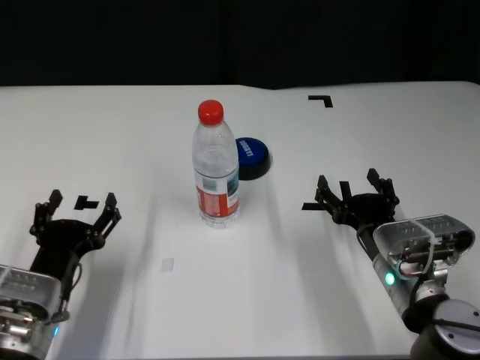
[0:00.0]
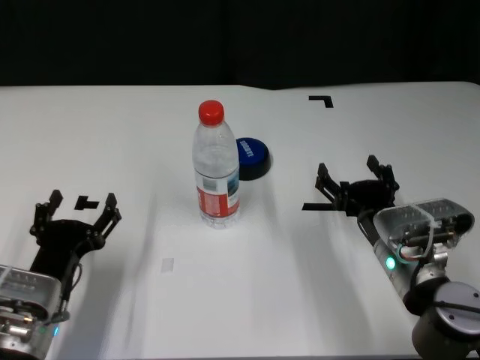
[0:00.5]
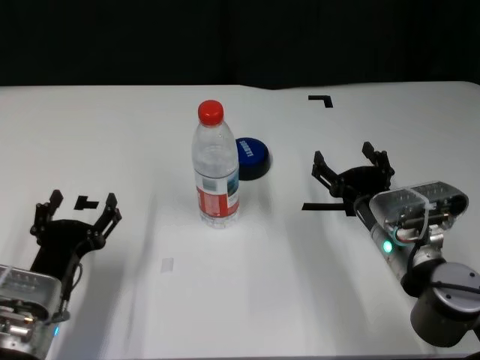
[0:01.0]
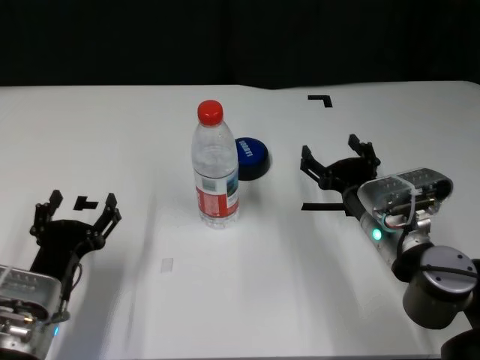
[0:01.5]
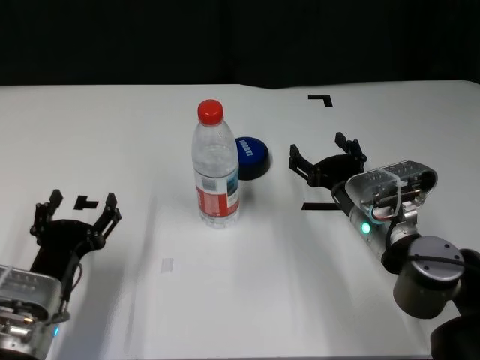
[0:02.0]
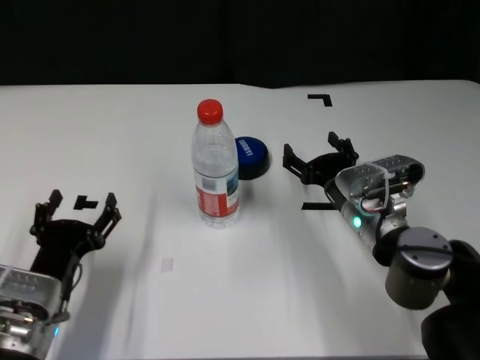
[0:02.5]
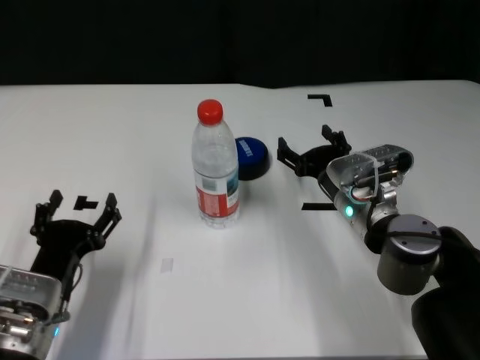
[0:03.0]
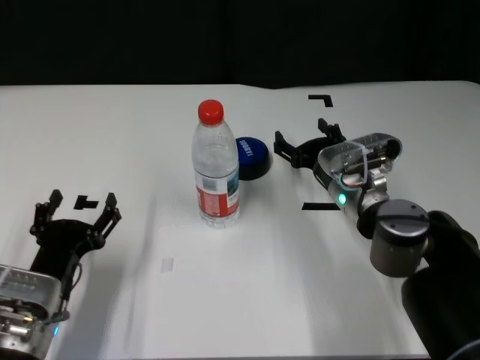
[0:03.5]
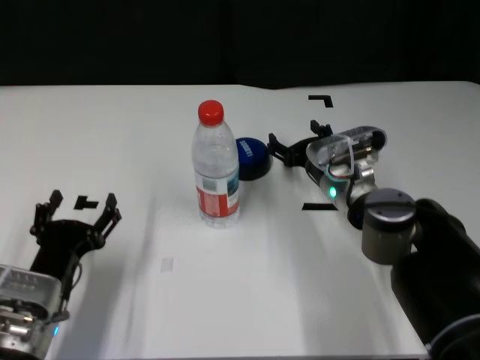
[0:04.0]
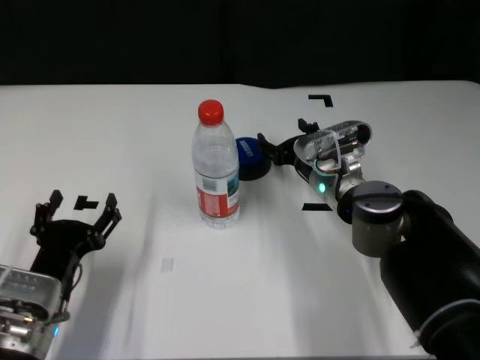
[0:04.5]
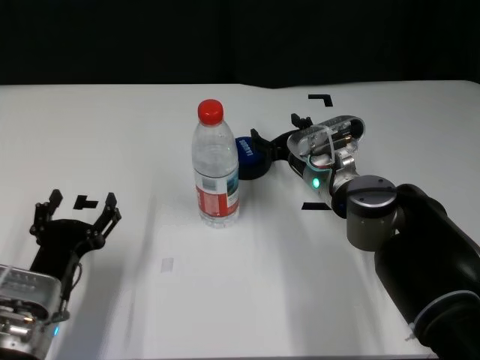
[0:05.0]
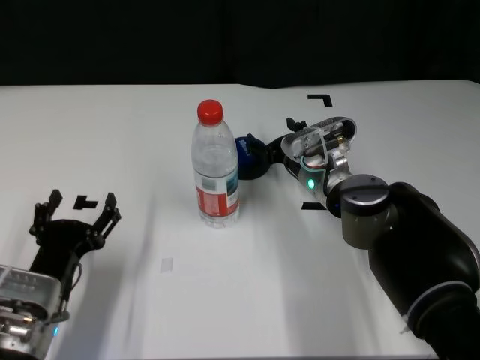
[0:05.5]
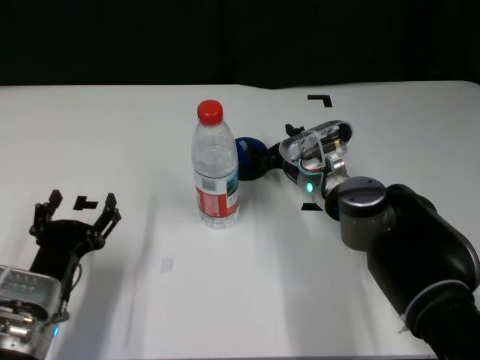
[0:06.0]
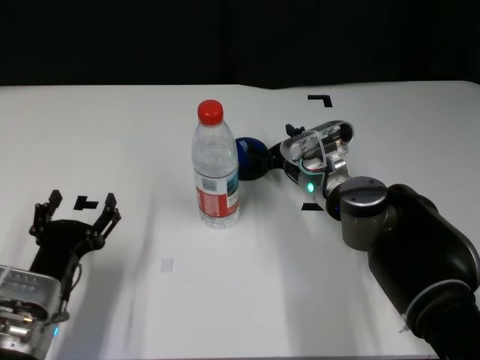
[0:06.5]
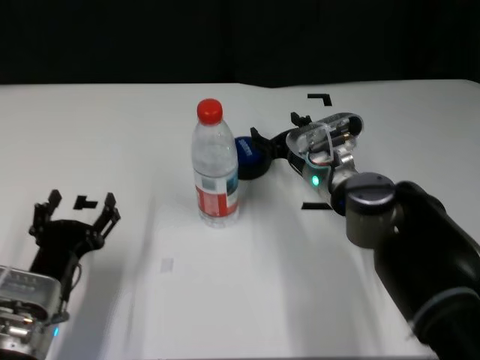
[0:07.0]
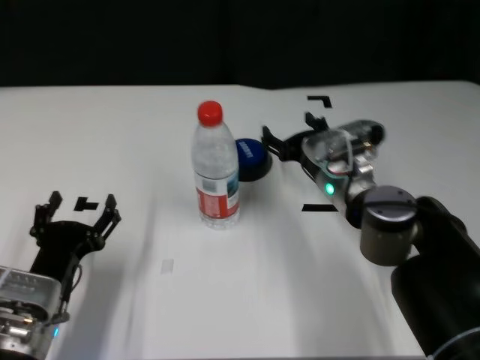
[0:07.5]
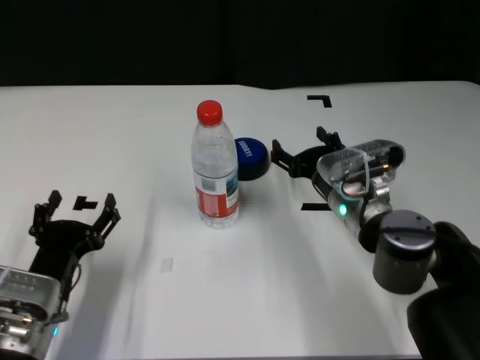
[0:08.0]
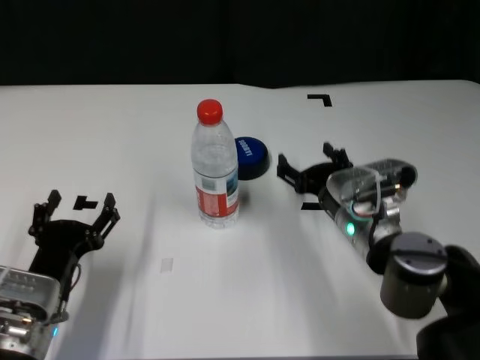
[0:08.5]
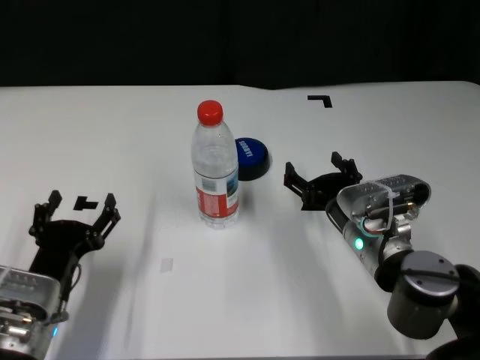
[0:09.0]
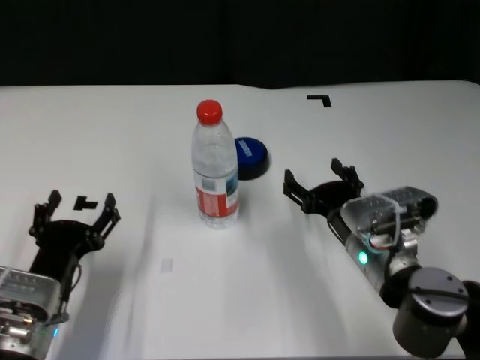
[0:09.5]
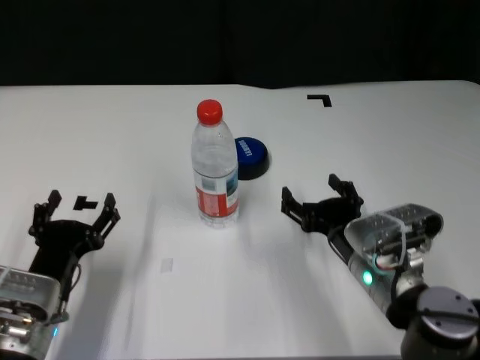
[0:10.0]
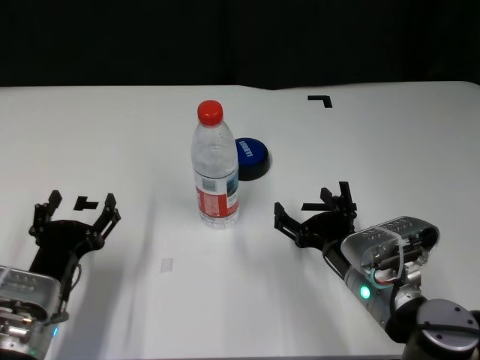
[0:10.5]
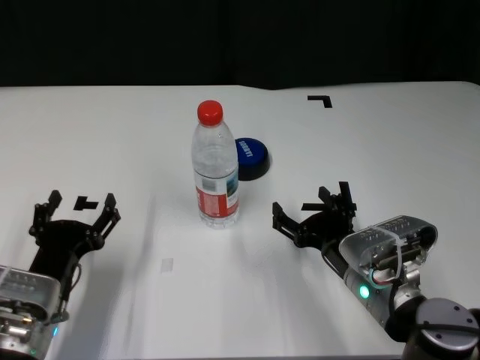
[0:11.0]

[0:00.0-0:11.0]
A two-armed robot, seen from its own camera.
Task of the whole recording: after avoiding the water bottle on the table, press the button.
Step, 0:00.0 to 0:06.5: Press the button blocked by the bottle with right gripper.

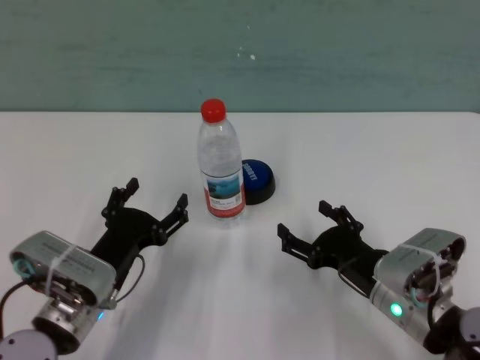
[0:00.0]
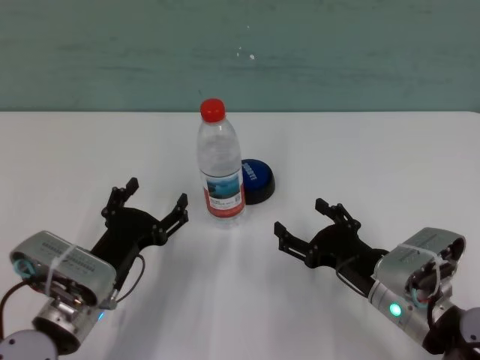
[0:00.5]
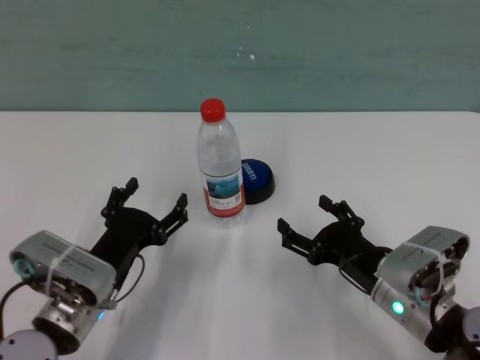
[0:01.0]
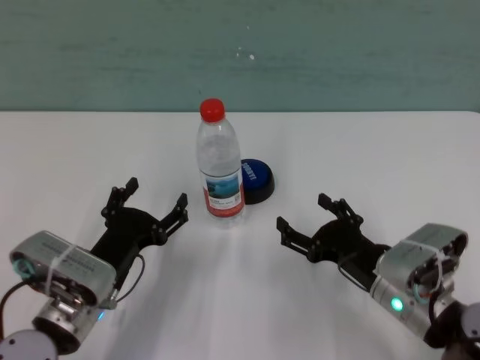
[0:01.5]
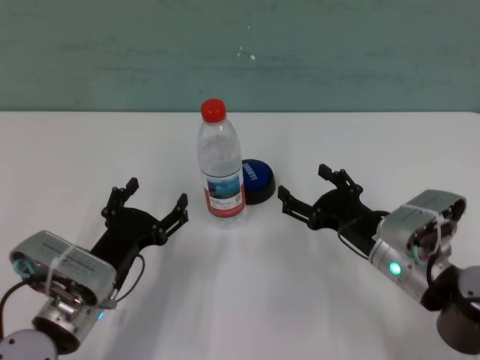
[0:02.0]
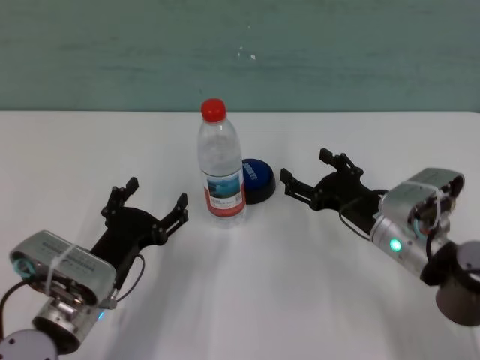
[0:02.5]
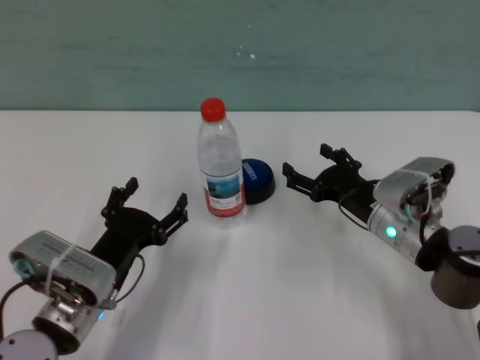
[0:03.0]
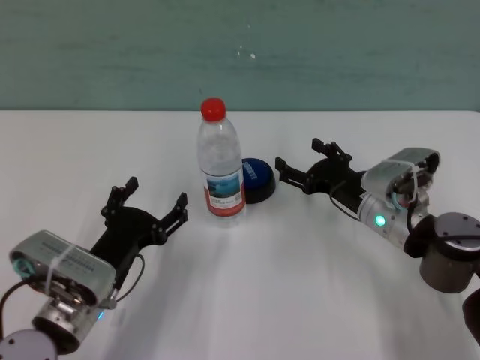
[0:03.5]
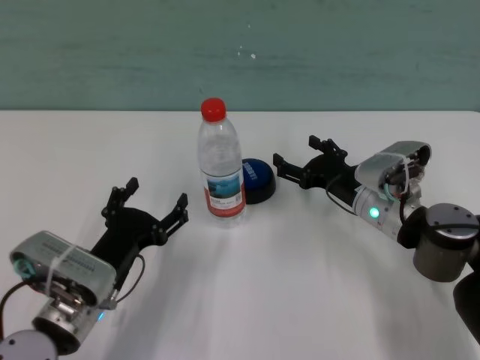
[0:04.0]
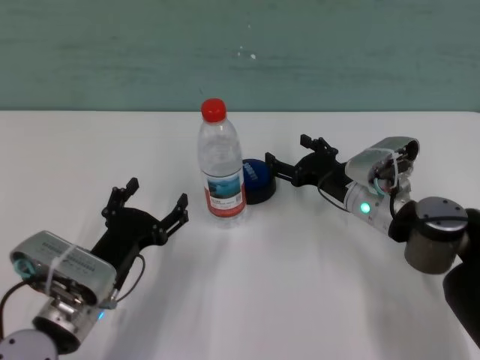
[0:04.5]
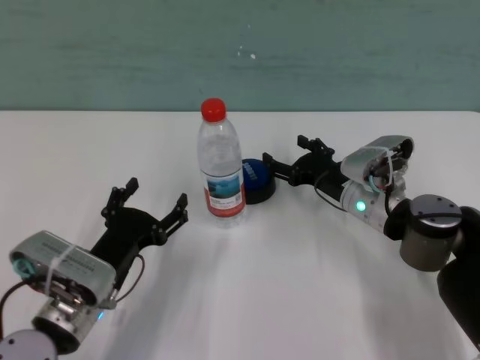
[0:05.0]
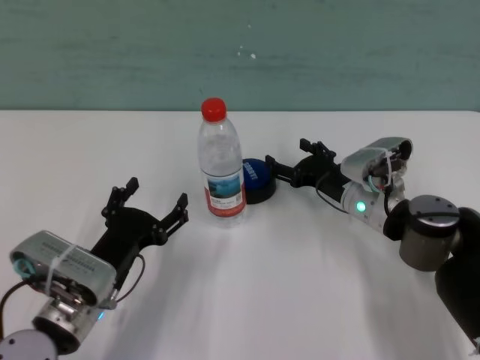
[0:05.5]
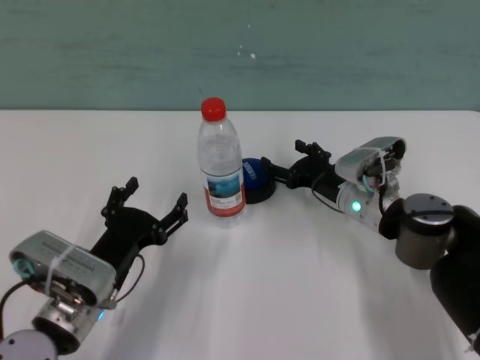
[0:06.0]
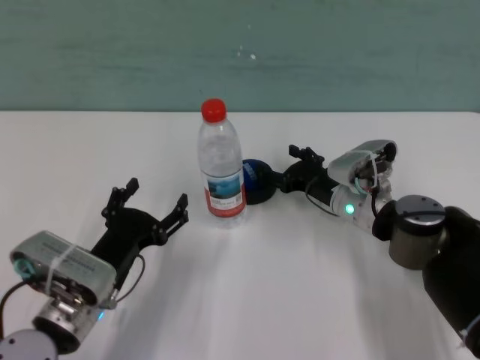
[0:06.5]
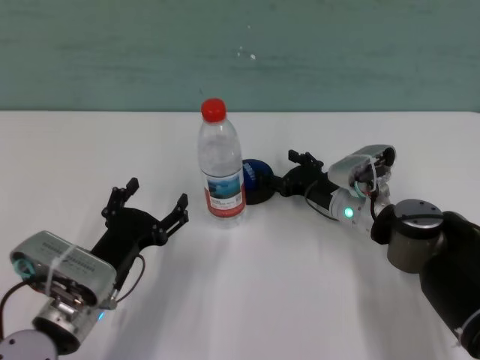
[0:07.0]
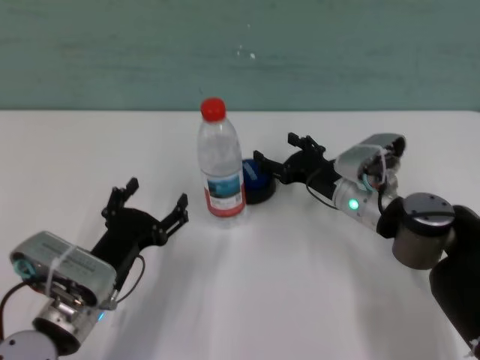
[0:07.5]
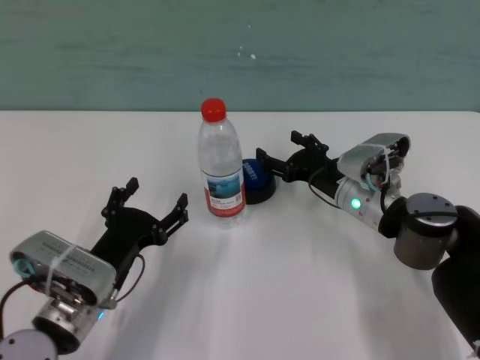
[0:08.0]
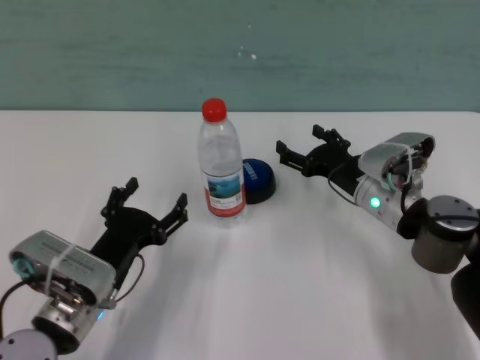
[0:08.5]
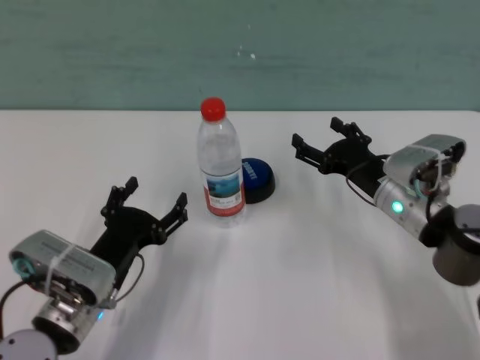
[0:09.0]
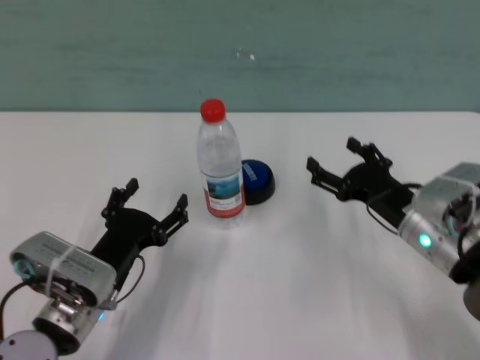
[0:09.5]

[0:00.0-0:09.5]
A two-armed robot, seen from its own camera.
Task of the whole recording: after avoiding the water bottle on the table, press the button.
Step, 0:00.0 to 0:07.5: Press the button blocked by the bottle with right gripper.

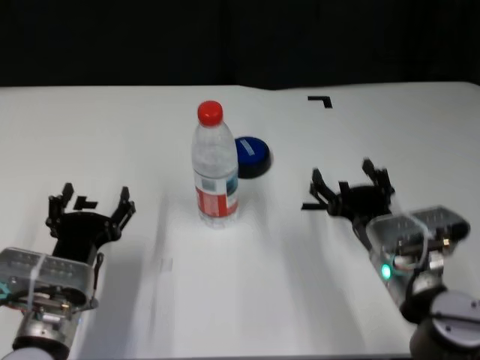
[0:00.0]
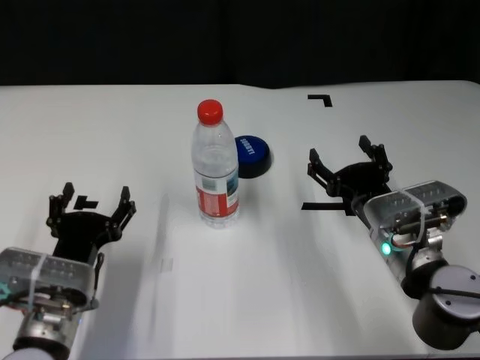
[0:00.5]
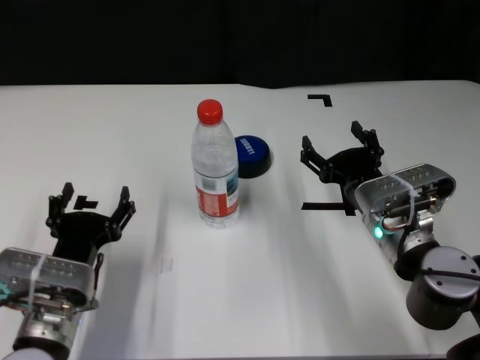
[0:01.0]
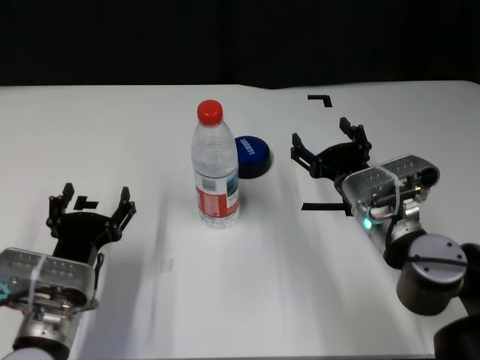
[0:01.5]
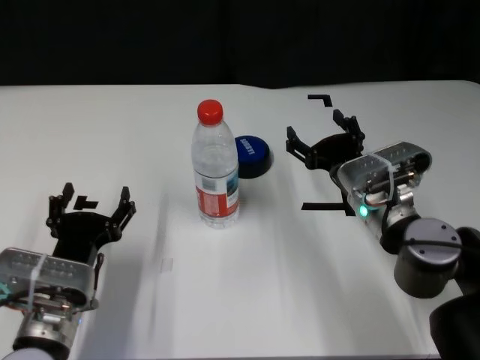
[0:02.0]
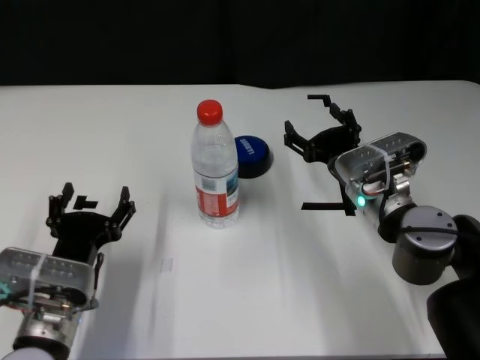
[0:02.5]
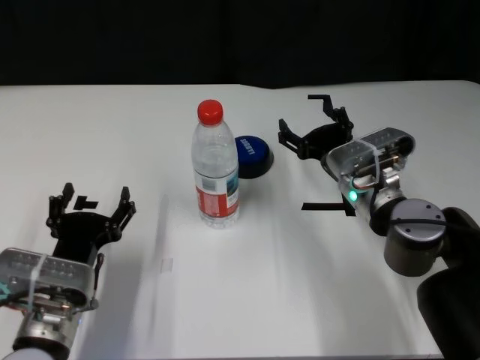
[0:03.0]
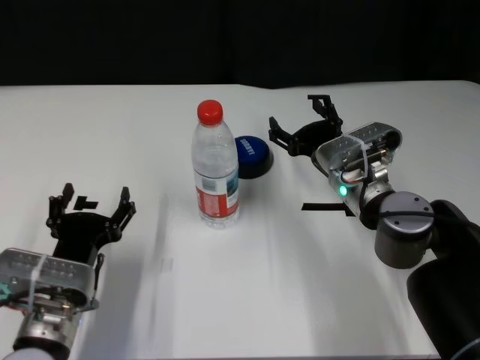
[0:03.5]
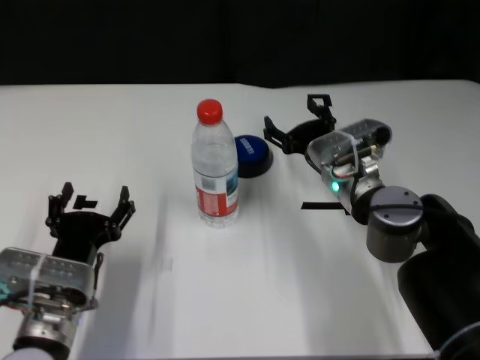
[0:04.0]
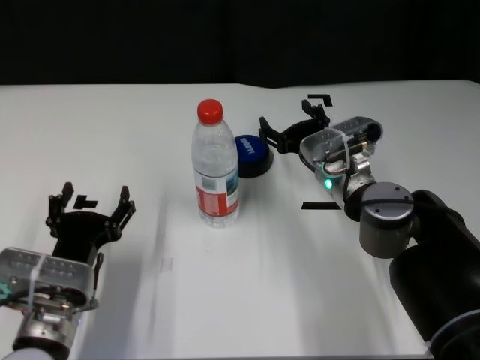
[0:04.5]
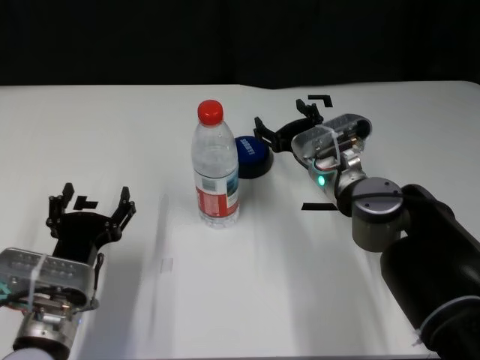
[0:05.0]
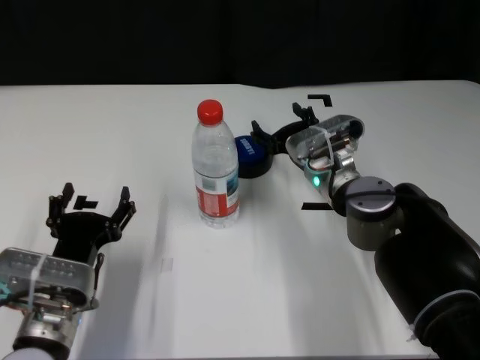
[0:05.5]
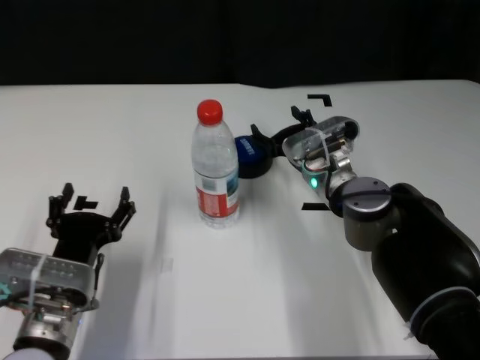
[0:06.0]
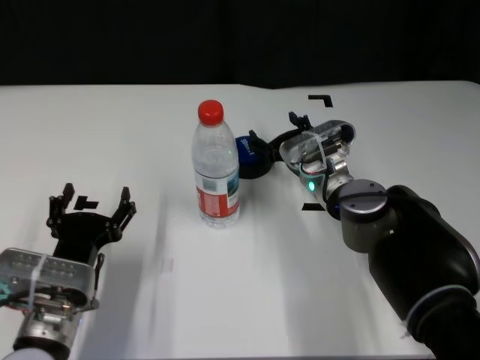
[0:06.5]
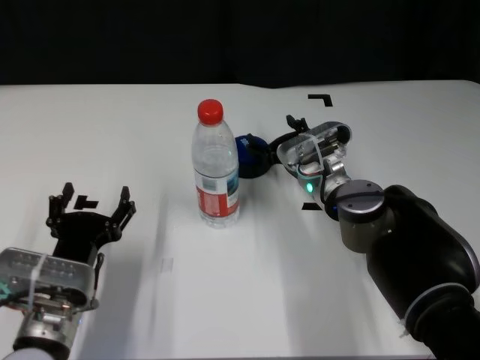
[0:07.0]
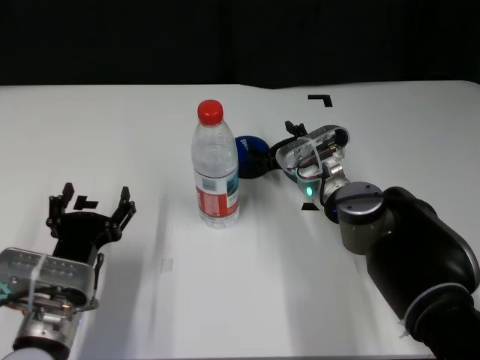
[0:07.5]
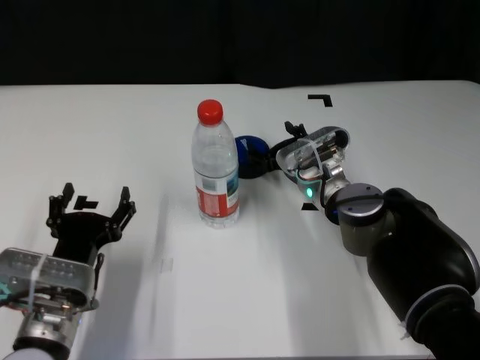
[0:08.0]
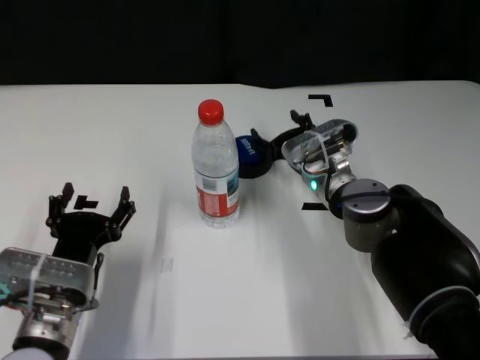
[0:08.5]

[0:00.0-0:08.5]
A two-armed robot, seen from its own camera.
Task of the whole recording: after avoiding the water bottle on the table, press the button.
Step, 0:00.0 to 0:08.5: Press the button blocked by the bottle with right gripper.
